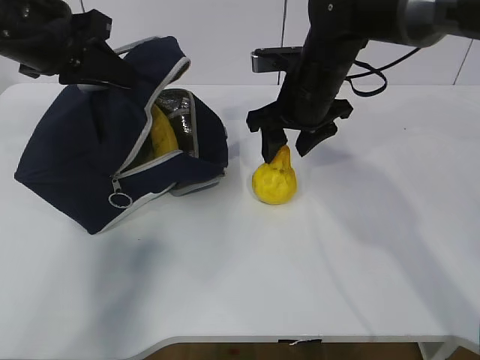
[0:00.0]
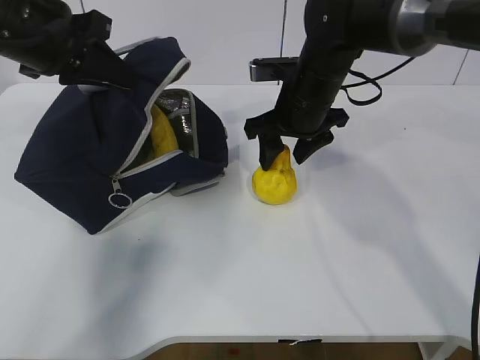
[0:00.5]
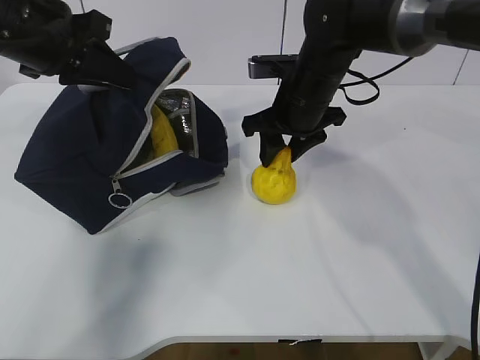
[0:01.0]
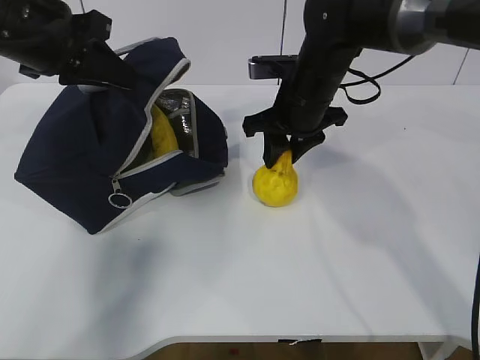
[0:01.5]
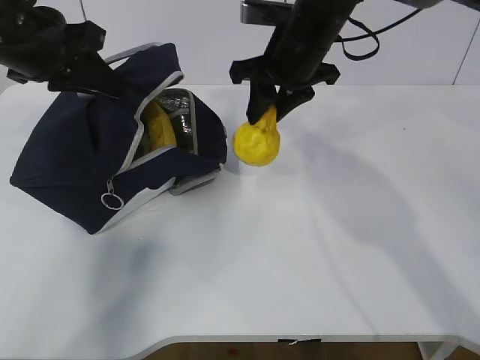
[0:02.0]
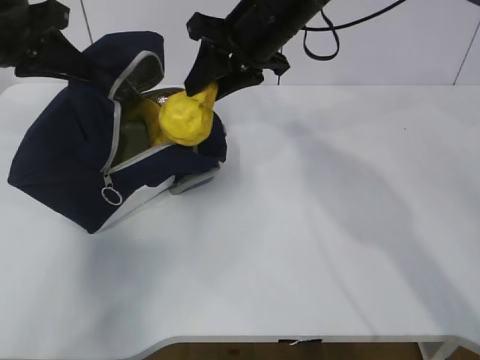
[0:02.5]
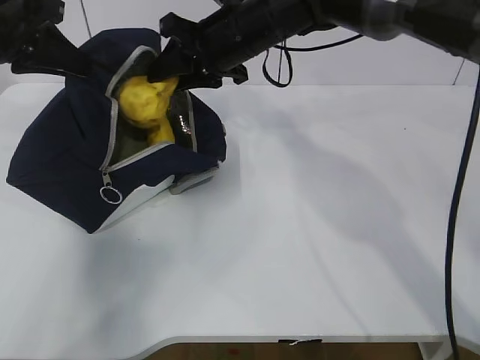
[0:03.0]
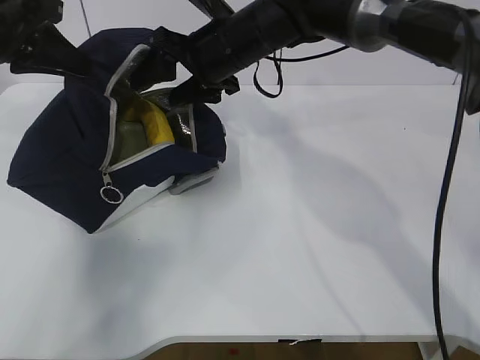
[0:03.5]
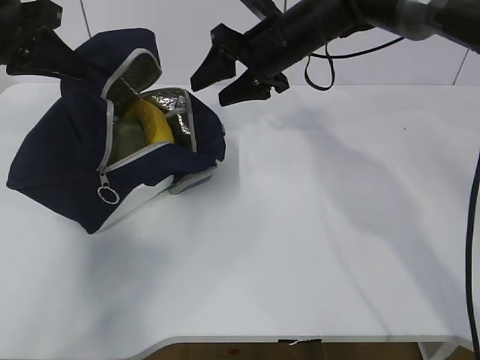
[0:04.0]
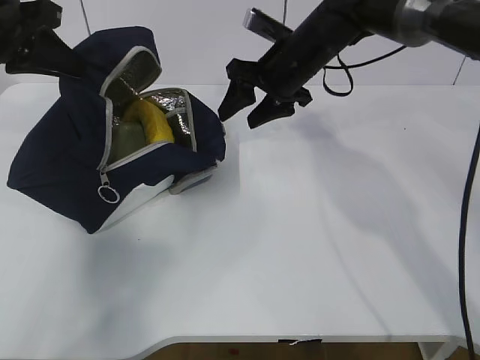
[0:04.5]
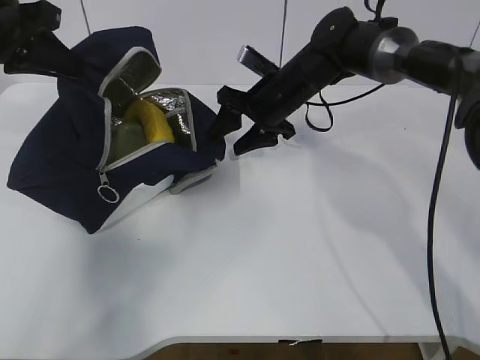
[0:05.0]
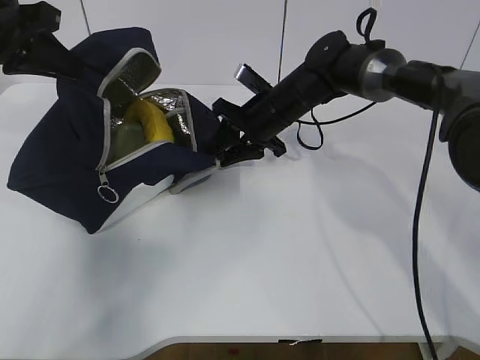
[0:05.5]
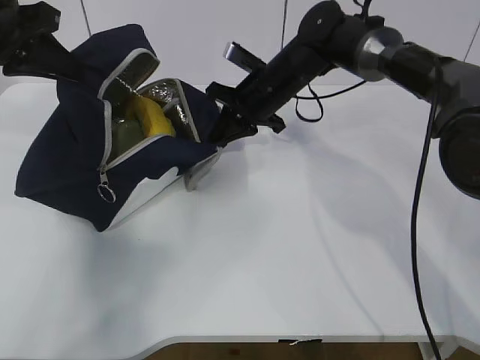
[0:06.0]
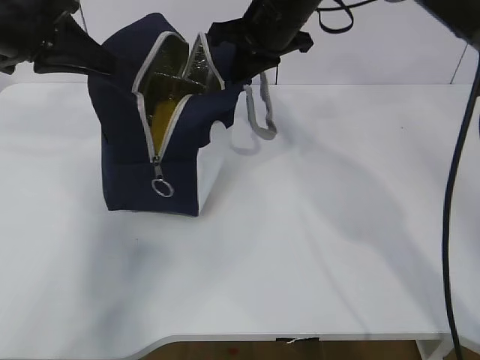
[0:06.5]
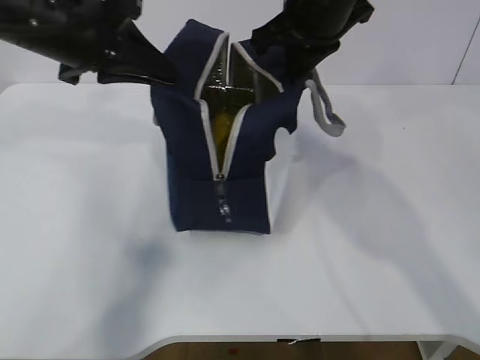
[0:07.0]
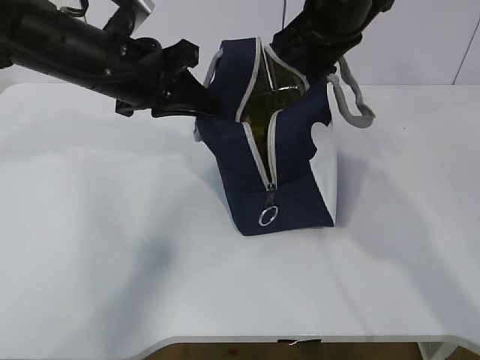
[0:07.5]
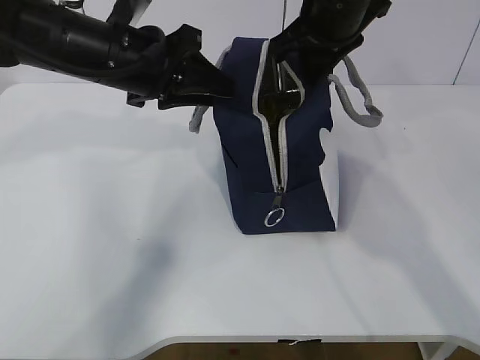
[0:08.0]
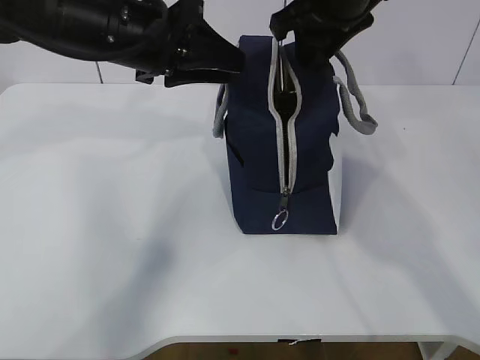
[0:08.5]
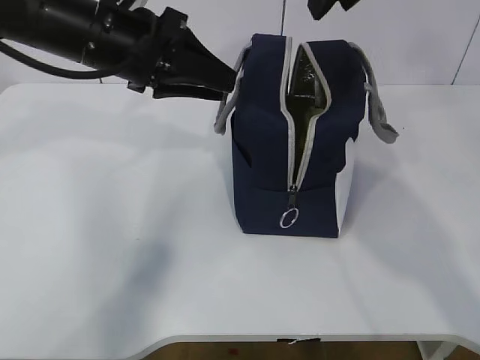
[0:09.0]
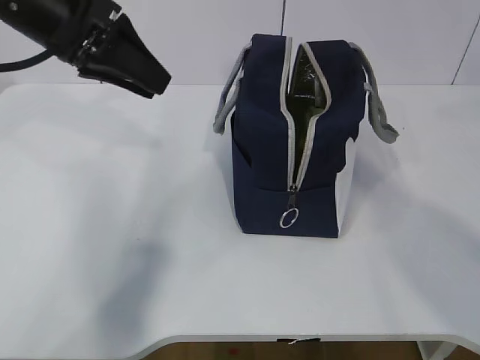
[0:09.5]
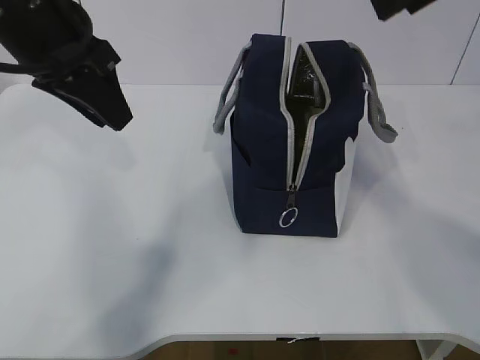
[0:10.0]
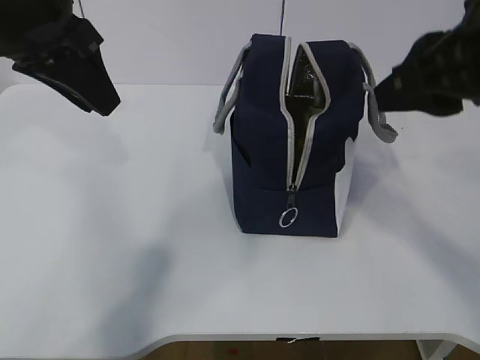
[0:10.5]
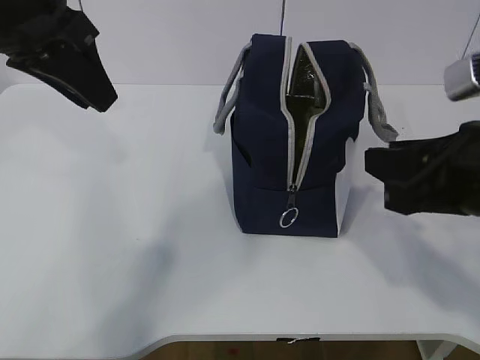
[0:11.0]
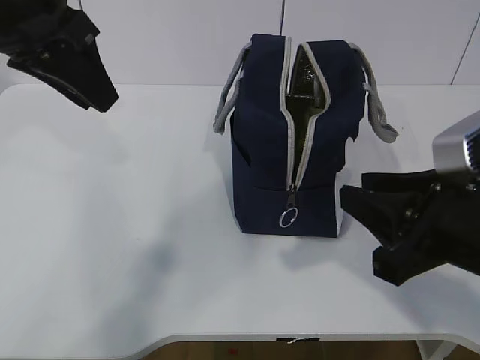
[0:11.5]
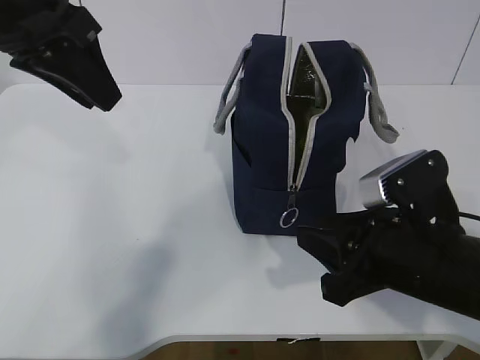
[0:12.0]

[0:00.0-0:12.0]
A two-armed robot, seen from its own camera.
Step, 0:00.0 to 0:02.0: Stand the lunch bag upright with your right hand.
0:00.0 to 0:02.0: The right gripper closes.
0:02.0 to 0:04.0: The right gripper moves some 10 cm to the left and comes back, and opens its fingers.
0:04.0 to 0:06.0: The right gripper heads downward, covering approximately 5 cm, and closes up.
0:06.0 to 0:08.0: The right gripper shifts roughly 15 cm upward and backward, and opens up. The left gripper heads to the right, covering some 15 cm, and opens.
0:08.0 to 0:10.0: The right gripper moves backward and upward, roughly 20 cm, while the left gripper goes approximately 5 cm upward.
0:10.0 to 0:12.0: The right gripper goes some 25 cm downward.

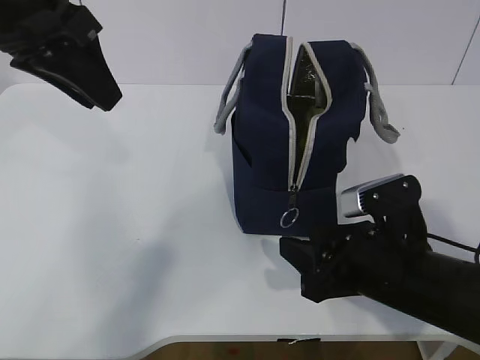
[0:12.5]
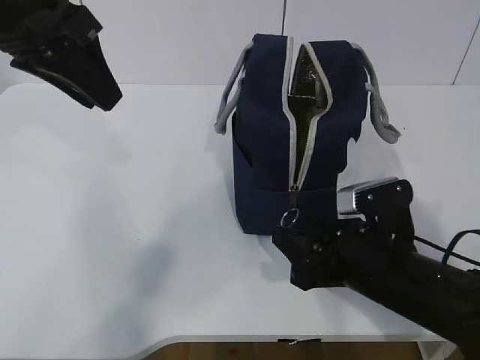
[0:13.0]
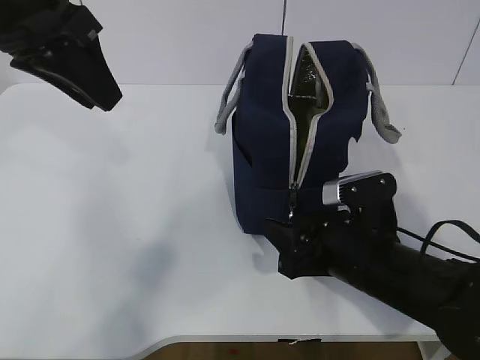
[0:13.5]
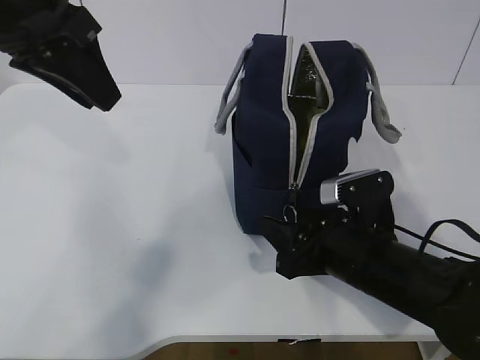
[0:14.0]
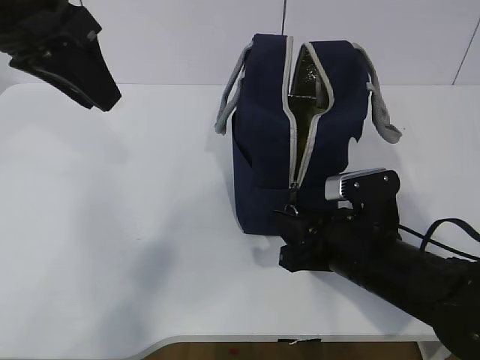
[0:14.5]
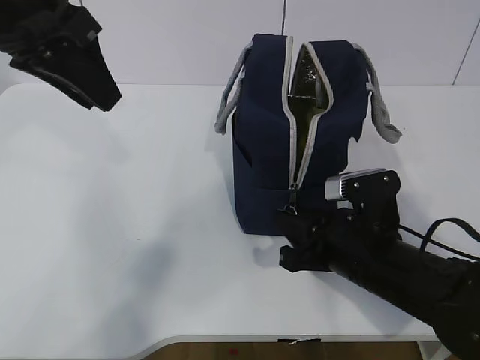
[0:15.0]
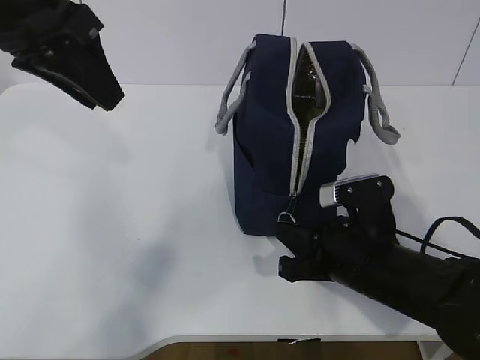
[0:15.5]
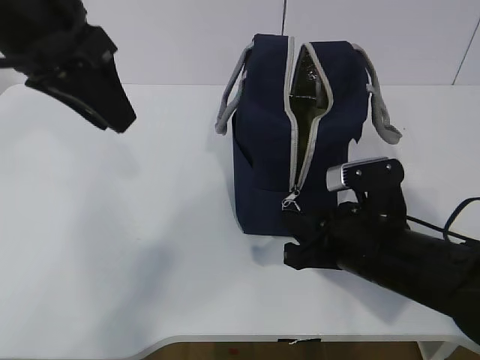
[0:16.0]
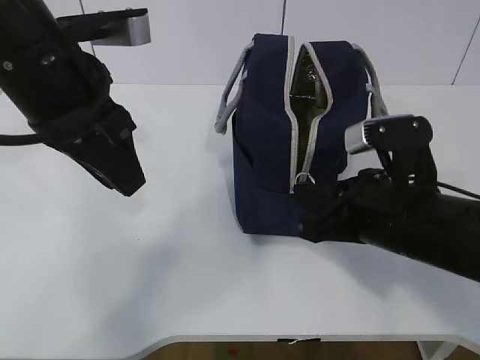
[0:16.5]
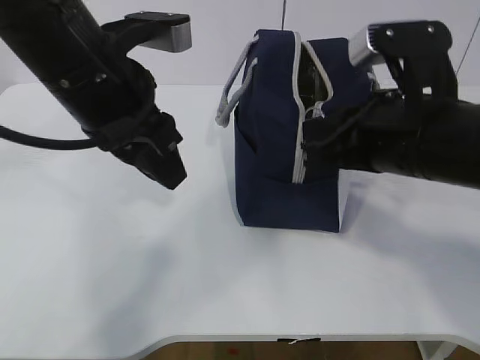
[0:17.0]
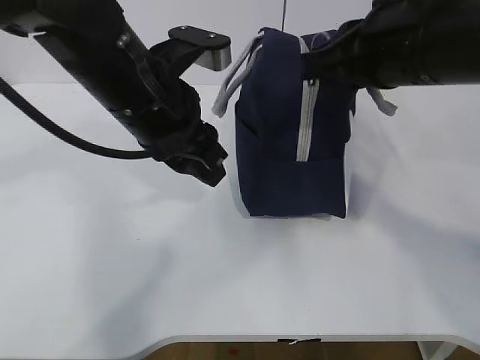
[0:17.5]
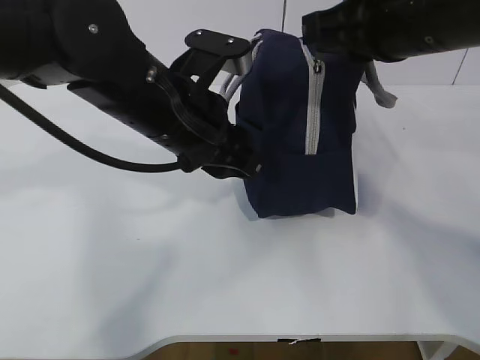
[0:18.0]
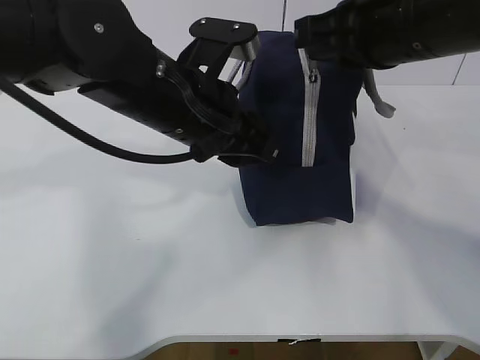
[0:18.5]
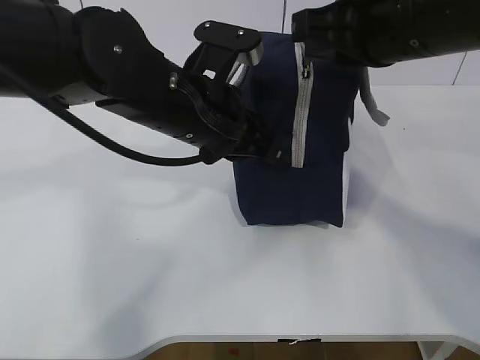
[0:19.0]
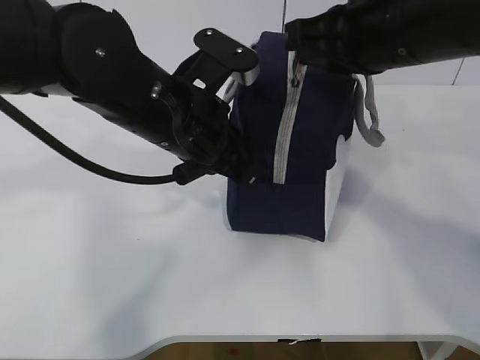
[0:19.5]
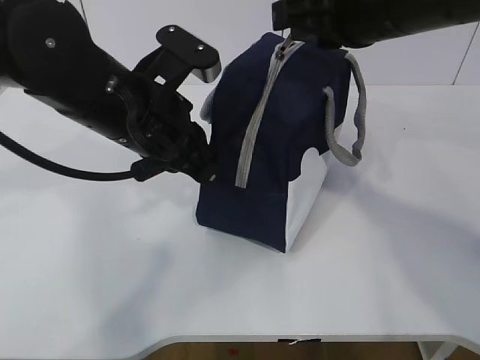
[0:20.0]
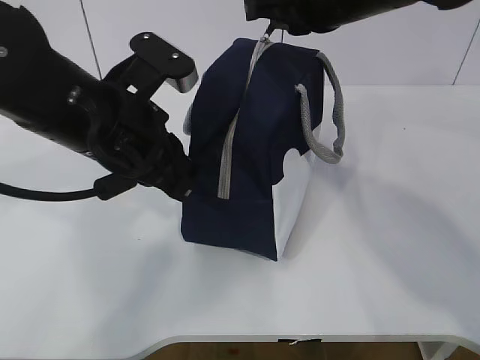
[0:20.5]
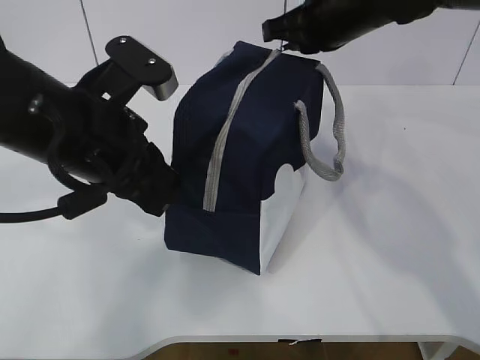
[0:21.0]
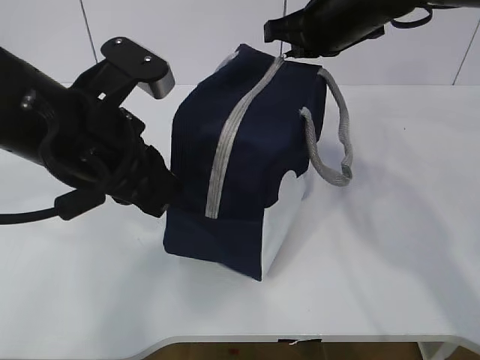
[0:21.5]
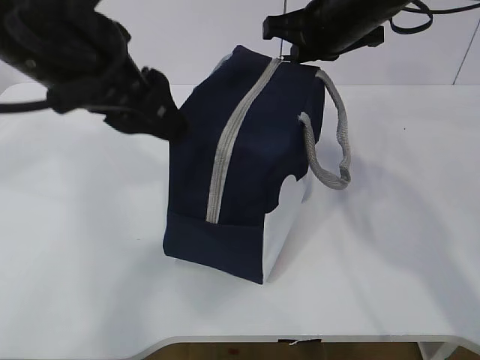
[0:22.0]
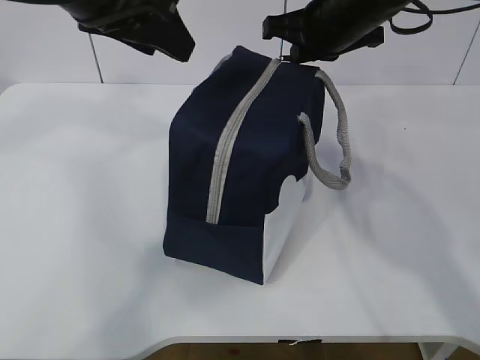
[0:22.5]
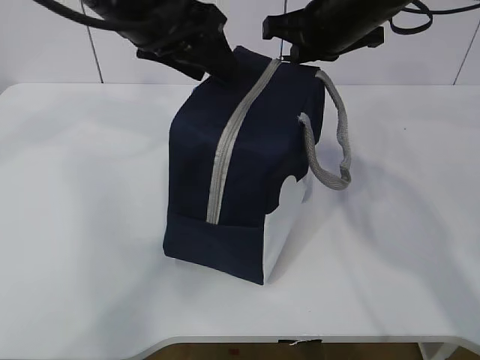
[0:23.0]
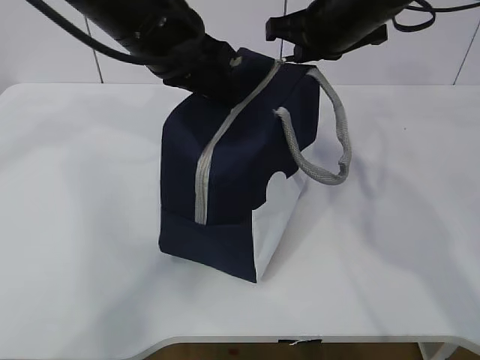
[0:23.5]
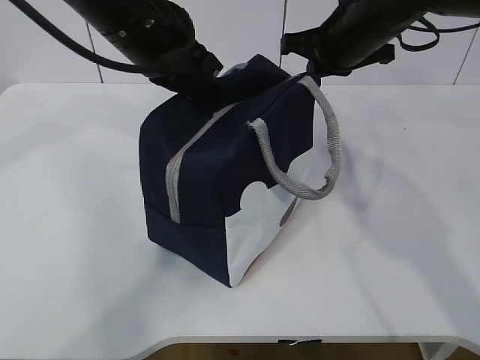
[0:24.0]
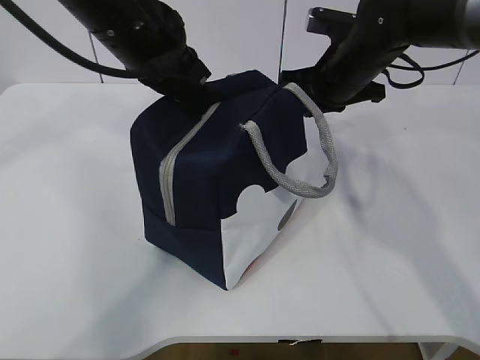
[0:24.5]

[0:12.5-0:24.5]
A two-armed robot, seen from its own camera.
Step, 0:13.5 to 0:16.0: Pull the zipper with your right hand.
0:12.5 to 0:14.5: There are only small adjustments of the grippers.
0:14.5 to 0:16.5: The left gripper moves some 5 cm, while the right gripper shifts about 5 cm upward, and closes up.
0:16.5 to 0:18.5: The left gripper heads to the right and downward, covering some 10 cm. Meanwhile the right gripper moves upward, some 15 cm.
0:18.5 to 0:20.5: The right gripper shifts approximately 5 cm forward. Meanwhile the left gripper goes about 5 cm to the left, and closes up.
0:20.5 to 0:22.5: The right gripper goes some 5 cm forward, while the left gripper goes approximately 10 cm upward, and opens up.
0:22.5 to 0:24.5: Both grippers travel together downward, some 5 cm. The left gripper closes.

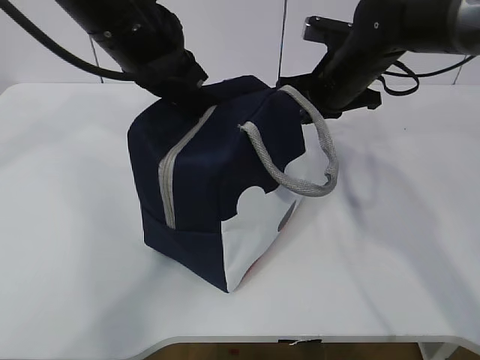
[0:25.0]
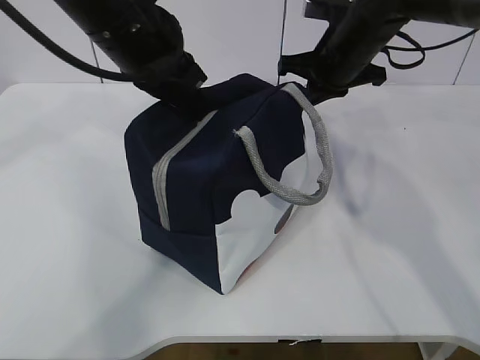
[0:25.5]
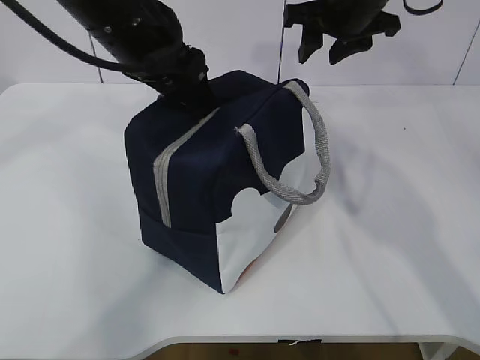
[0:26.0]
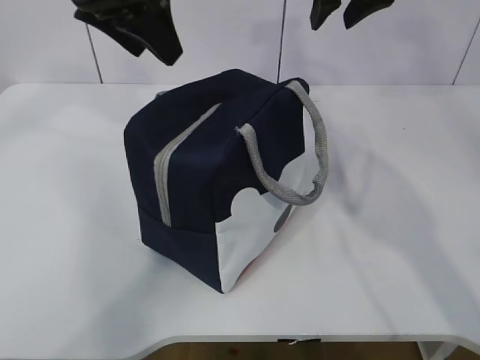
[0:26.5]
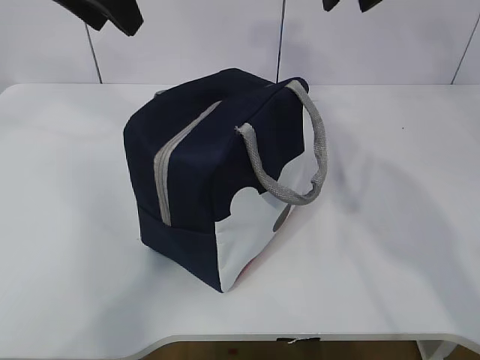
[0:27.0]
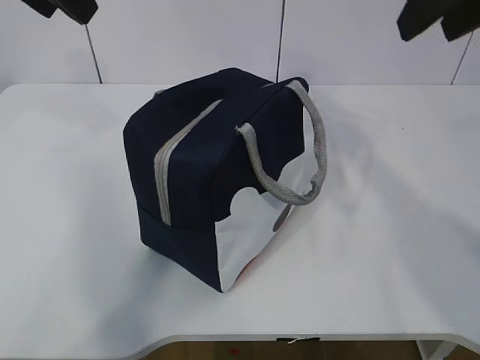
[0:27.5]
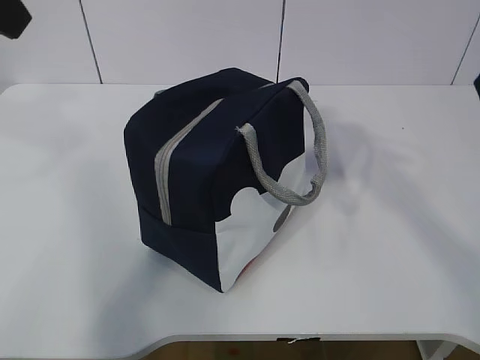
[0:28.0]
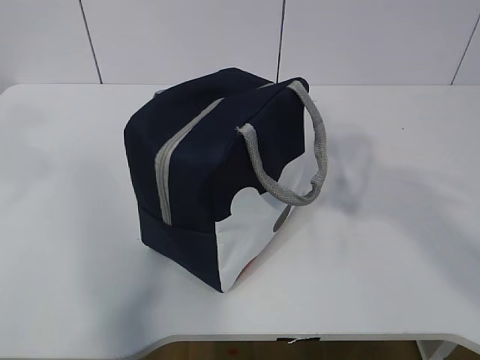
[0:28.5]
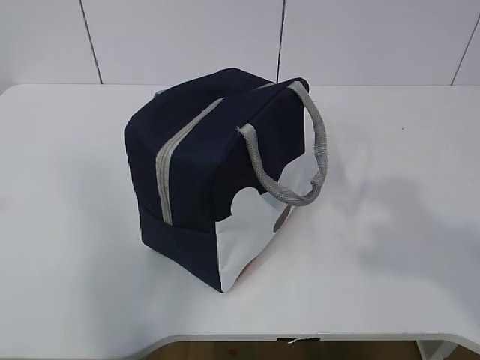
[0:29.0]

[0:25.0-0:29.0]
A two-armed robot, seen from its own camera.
0:25.0 to 0:27.0: The right gripper is displaced upward by about 20 cm, and opens up. The left gripper shifts approximately 10 cm upward and to the left, and opens its fingers.
0:27.0 to 0:29.0: The right gripper goes roughly 35 cm backward. The left gripper moves backward and to the left, roughly 25 cm.
